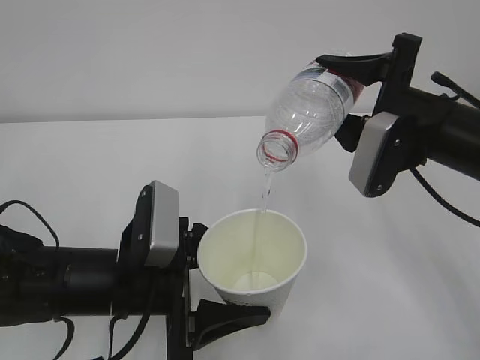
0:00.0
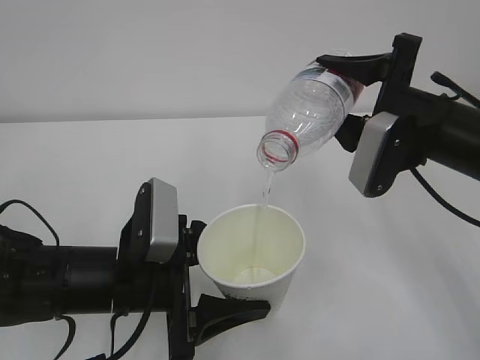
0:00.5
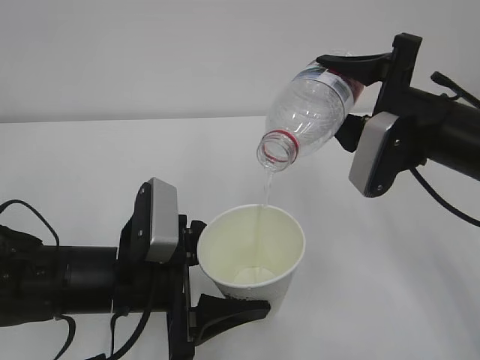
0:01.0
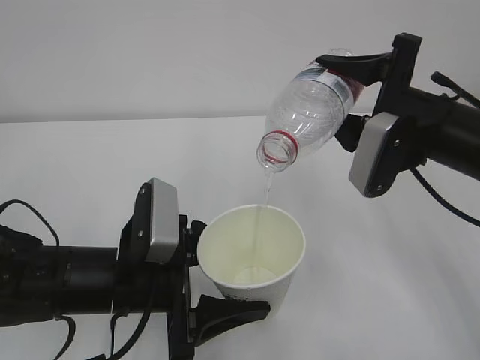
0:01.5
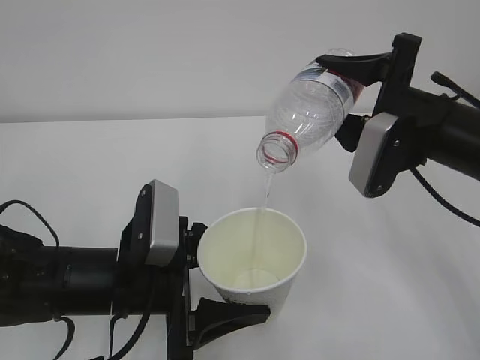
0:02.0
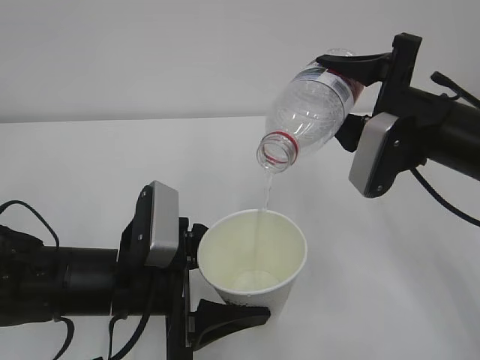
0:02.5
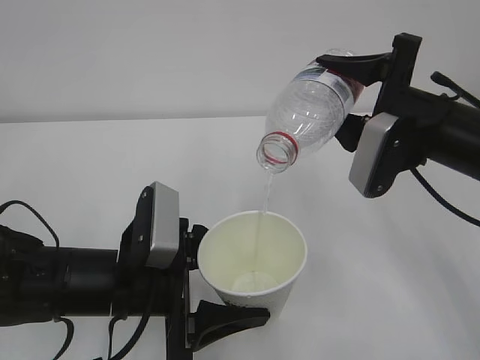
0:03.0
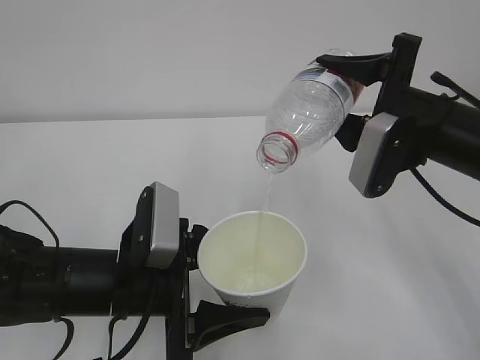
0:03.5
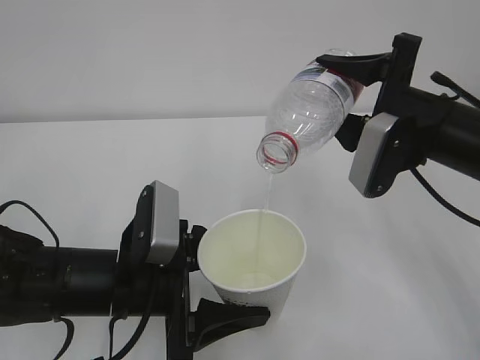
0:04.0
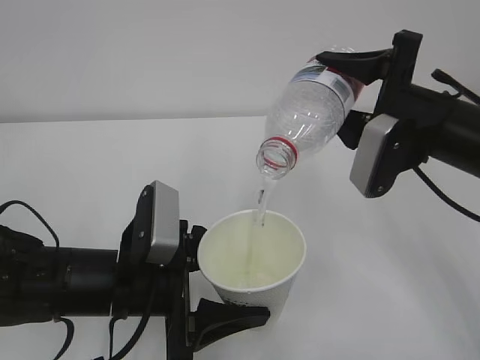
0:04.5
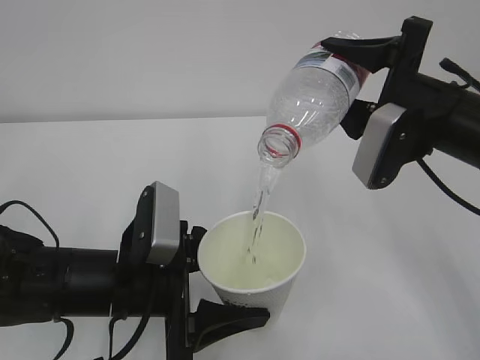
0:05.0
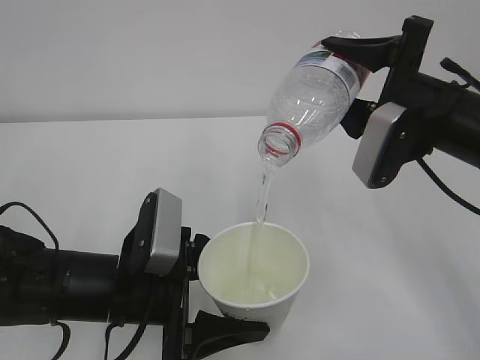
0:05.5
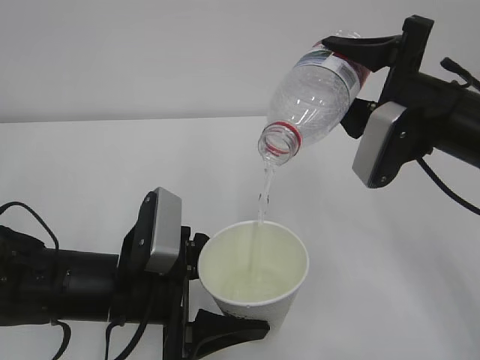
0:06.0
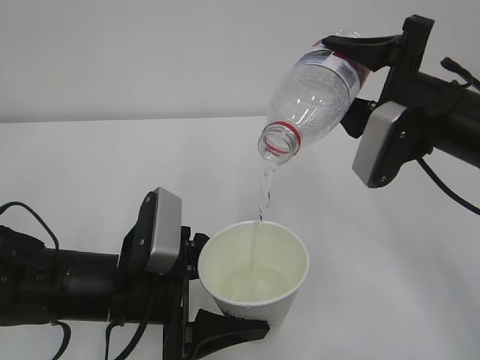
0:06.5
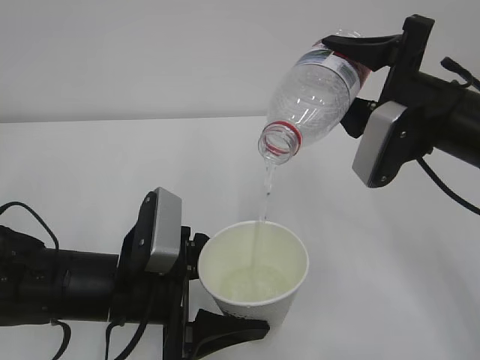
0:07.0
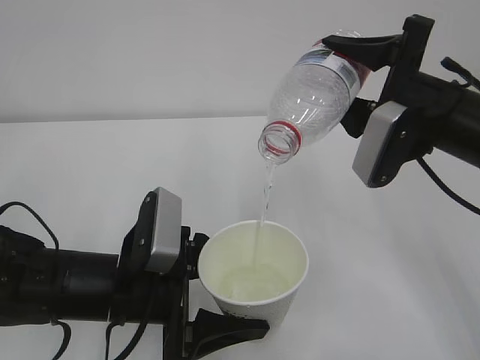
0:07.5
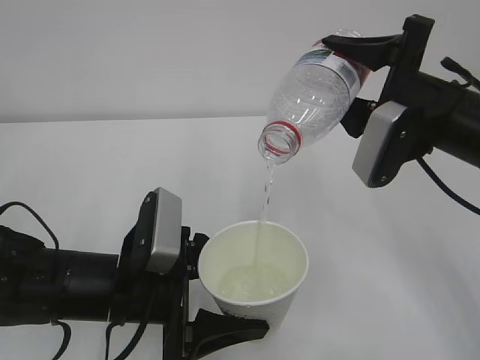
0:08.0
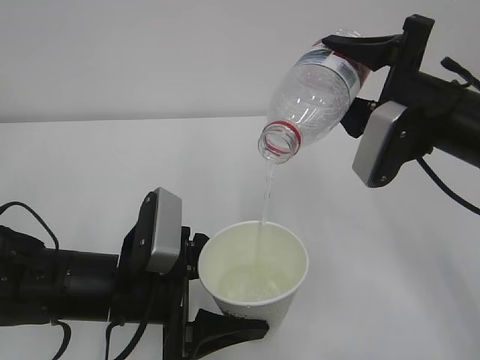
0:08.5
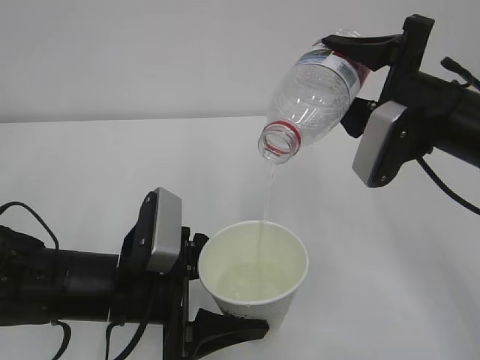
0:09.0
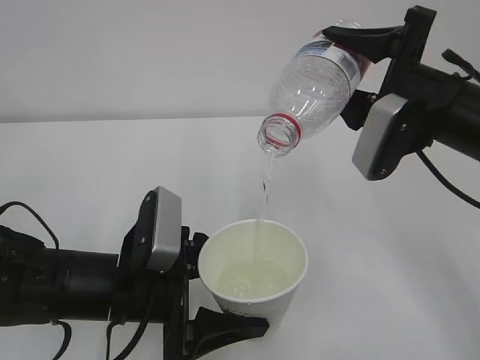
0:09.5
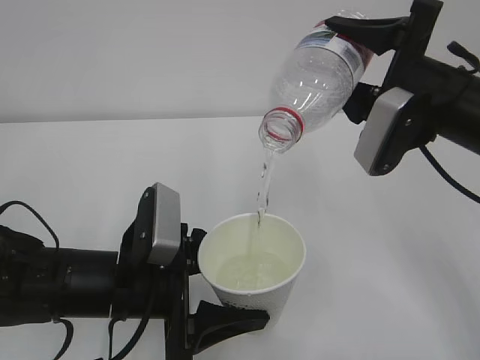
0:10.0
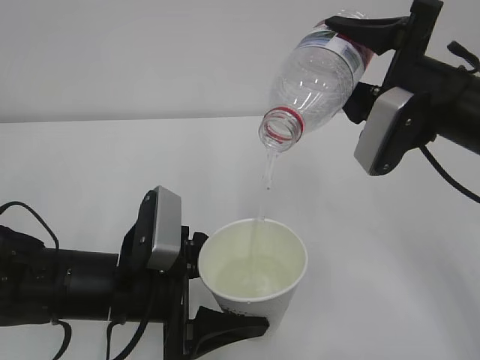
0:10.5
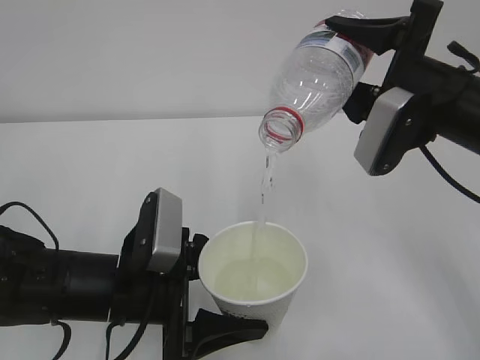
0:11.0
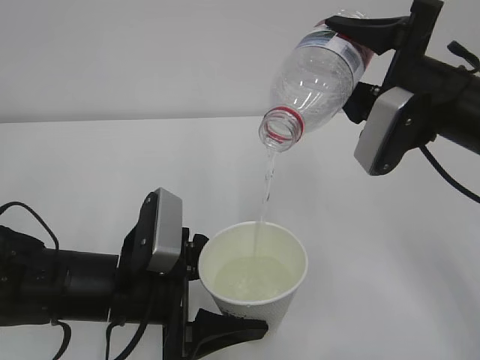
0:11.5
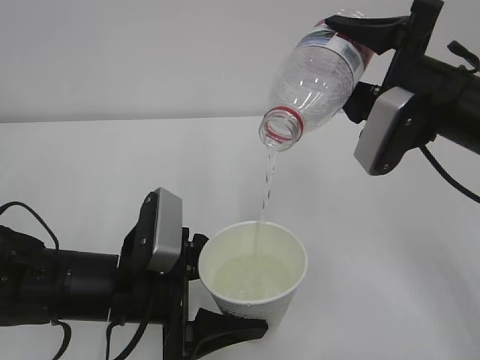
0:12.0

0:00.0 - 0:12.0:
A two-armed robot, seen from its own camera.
0:00.0 - 0:04.0: The two grippers keep their place.
0:04.0 - 0:06.0: The two grippers keep their place.
0:06.0 - 0:12.0: Both grippers stay put.

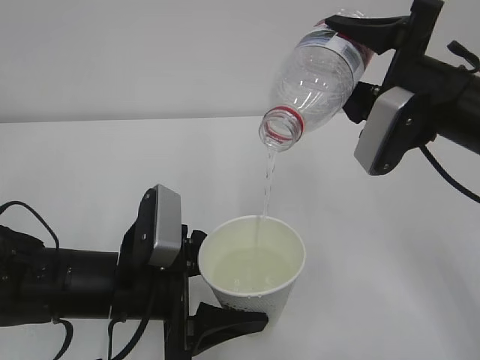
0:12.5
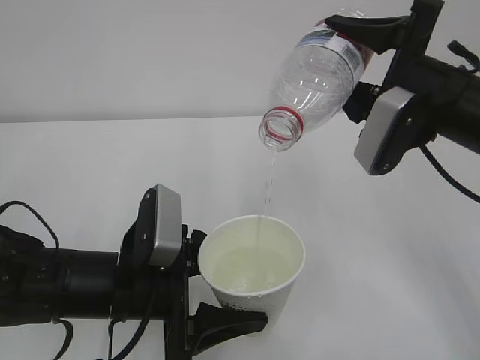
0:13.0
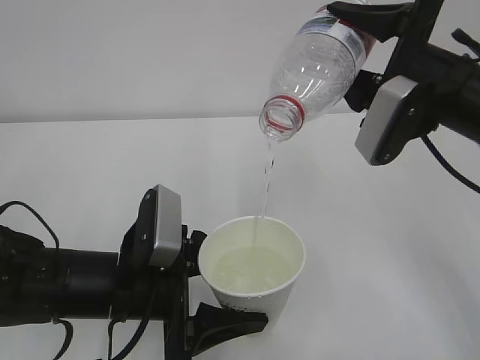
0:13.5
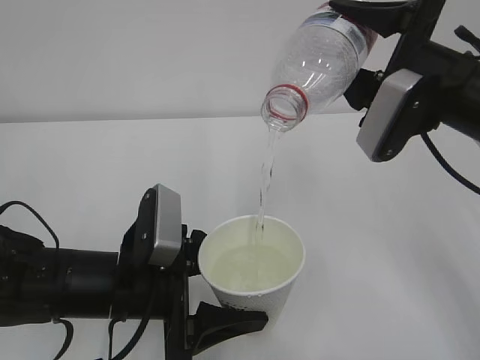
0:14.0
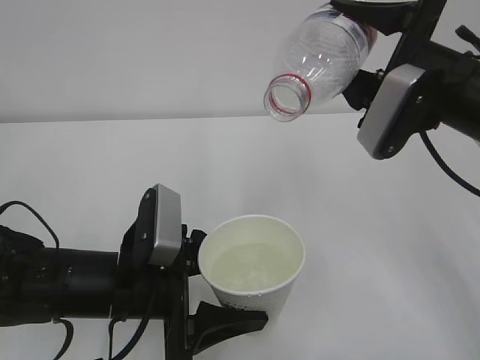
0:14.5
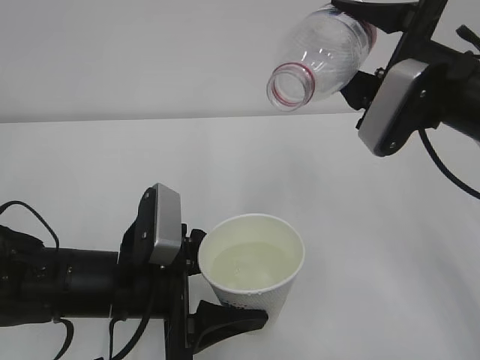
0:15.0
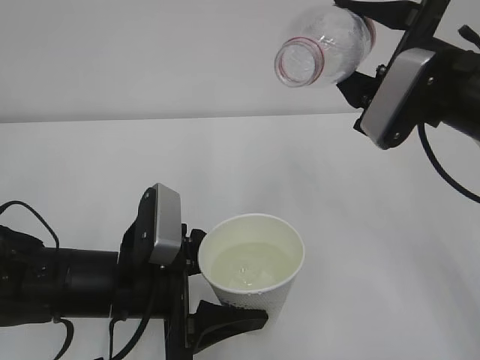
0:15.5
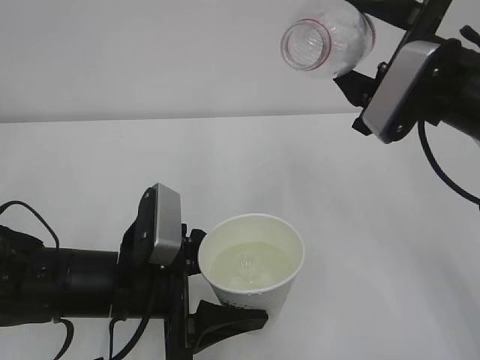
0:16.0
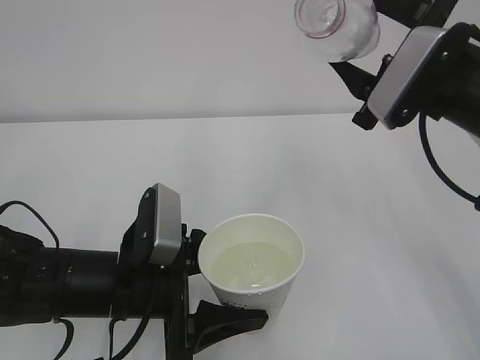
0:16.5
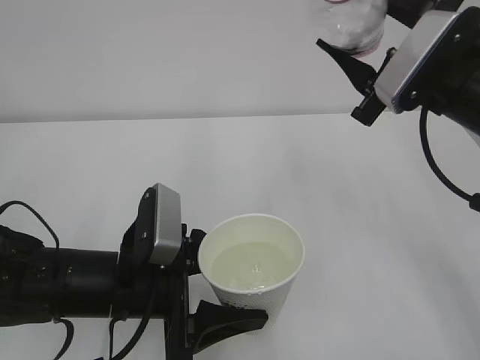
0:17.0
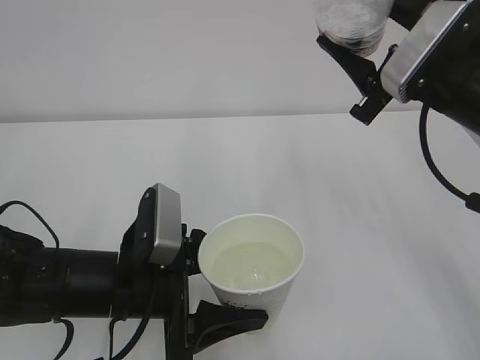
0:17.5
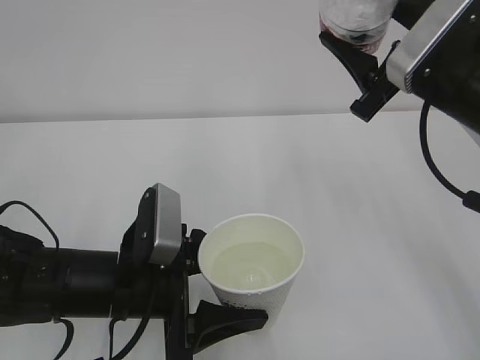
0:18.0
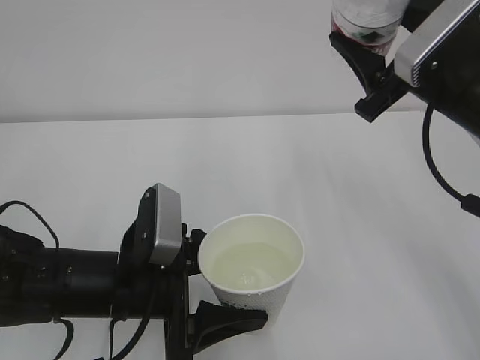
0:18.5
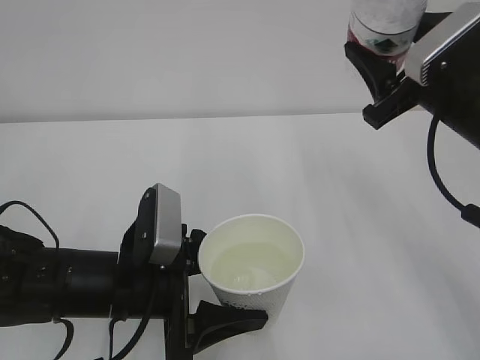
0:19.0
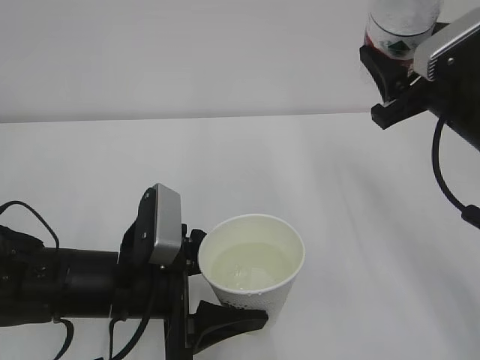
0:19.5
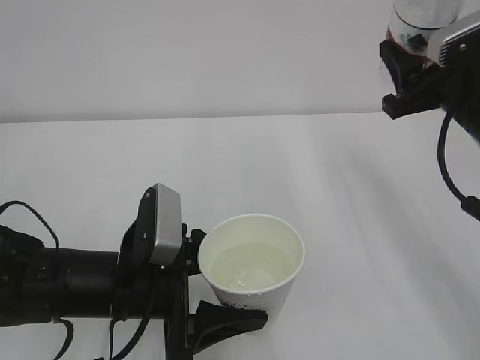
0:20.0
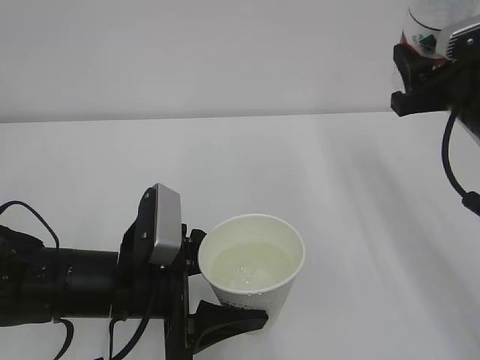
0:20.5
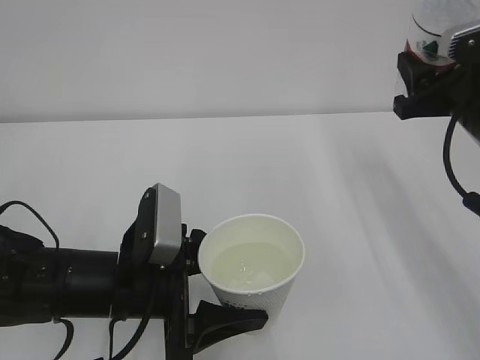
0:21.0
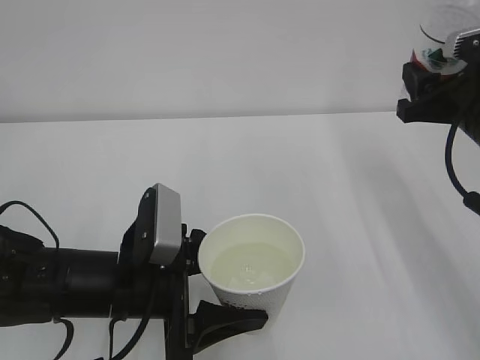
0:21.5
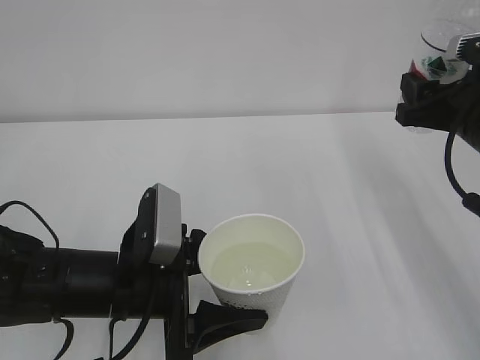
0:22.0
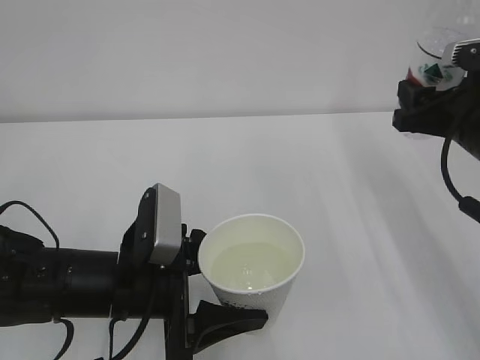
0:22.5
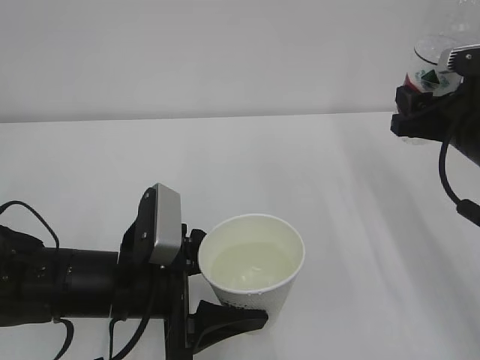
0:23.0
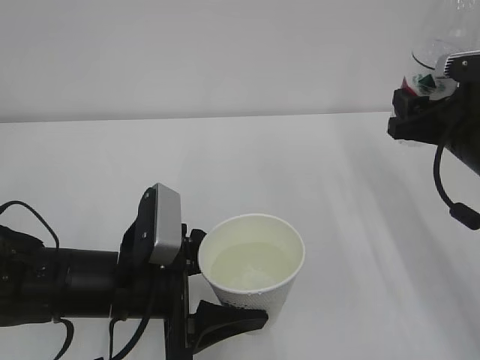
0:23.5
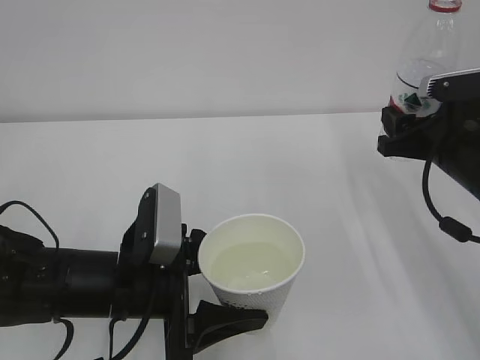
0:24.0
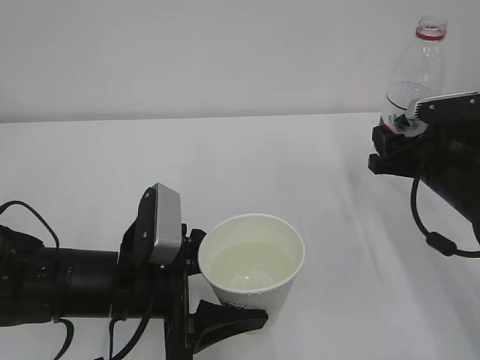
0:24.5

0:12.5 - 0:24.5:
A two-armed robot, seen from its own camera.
0:12.5 - 0:14.5: The grippers move only a little.
0:14.5 - 0:16.5: The grippers stay close to where they were, moving slightly.
0:20.5 - 0:22.5: The grippers make only small movements.
0:22.5 - 0:24.5: The right gripper is displaced downward by some 5 cm.

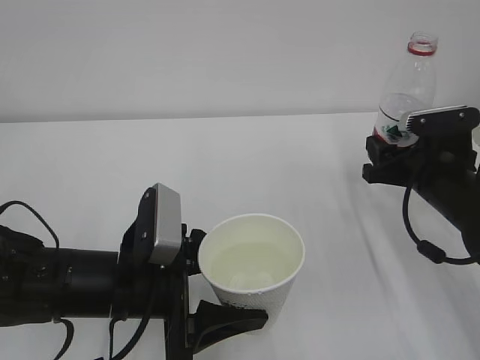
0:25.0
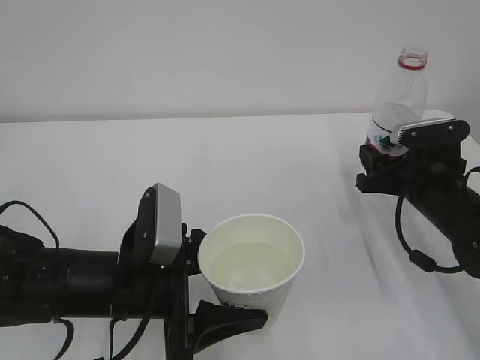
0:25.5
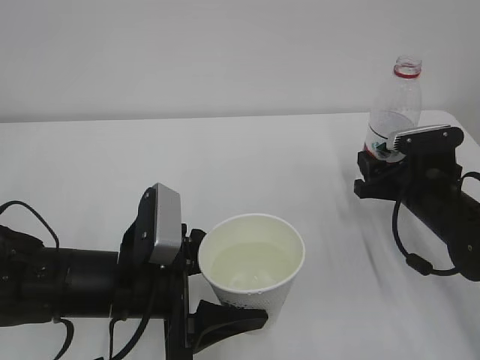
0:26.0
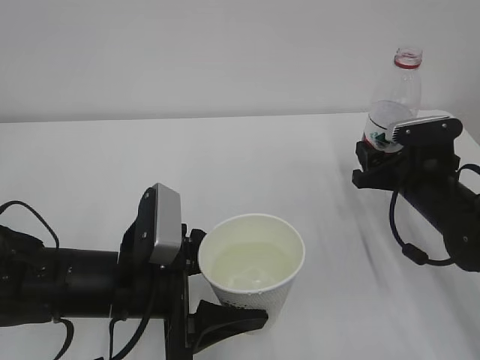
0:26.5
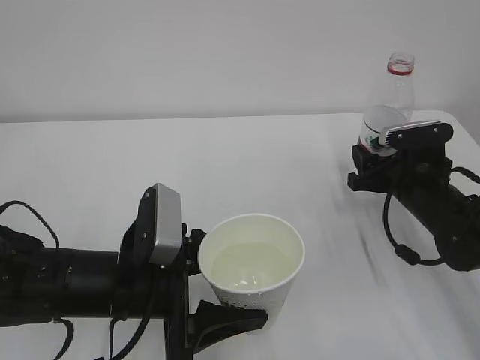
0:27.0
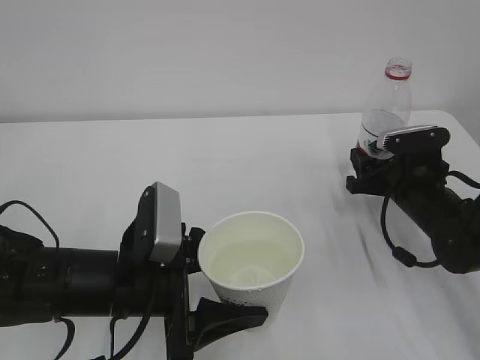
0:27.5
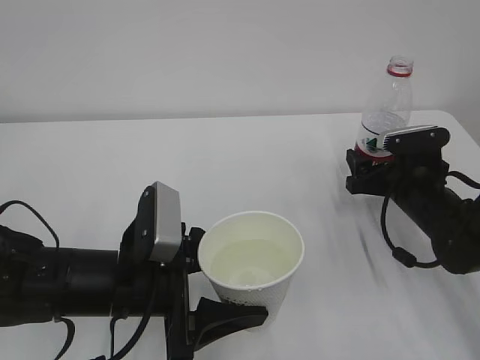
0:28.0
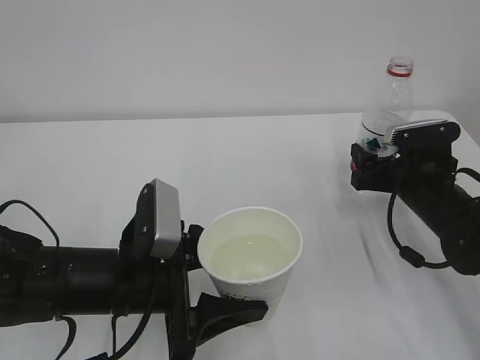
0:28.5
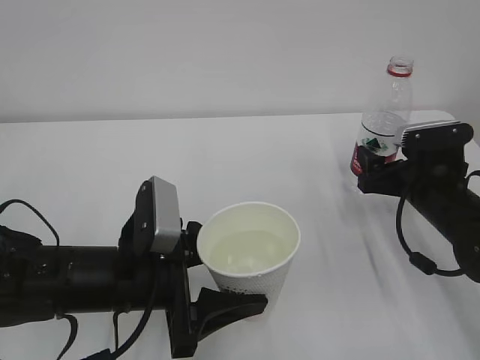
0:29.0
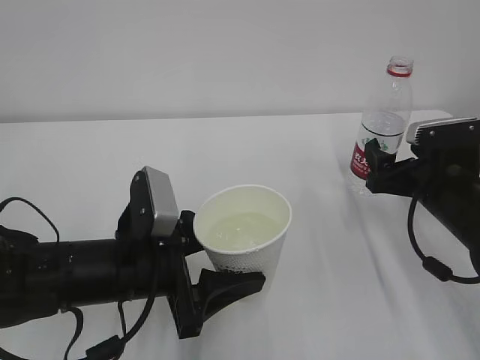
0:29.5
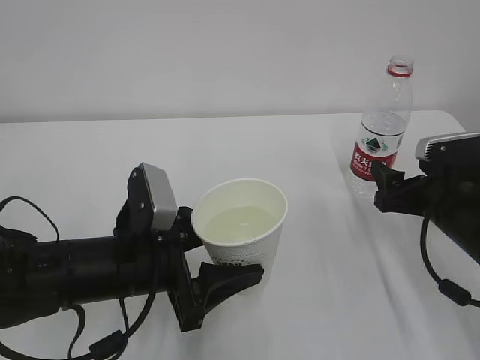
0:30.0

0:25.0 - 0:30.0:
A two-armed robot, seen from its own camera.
0:25.0 - 0:27.5: The right gripper ends up roughly 5 cm from where it was.
0:27.5 - 0:30.0: The right gripper heads backward, covering roughly 5 cm, and opens up.
